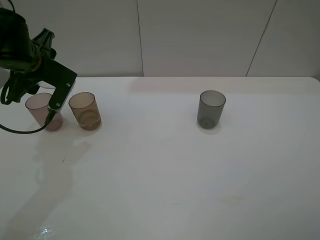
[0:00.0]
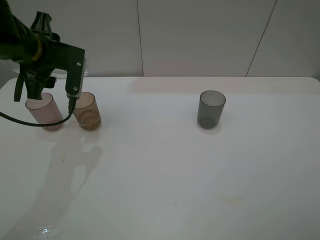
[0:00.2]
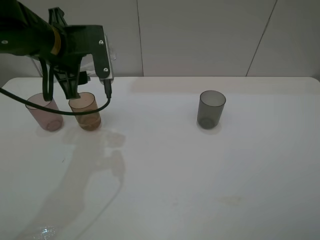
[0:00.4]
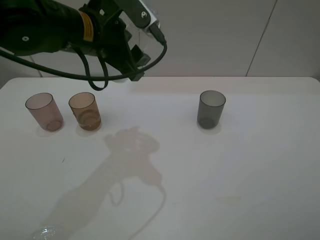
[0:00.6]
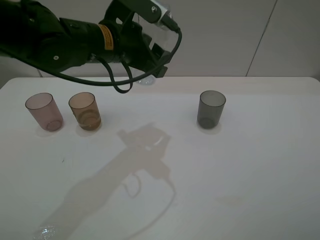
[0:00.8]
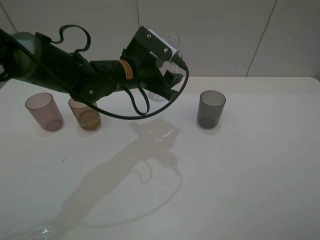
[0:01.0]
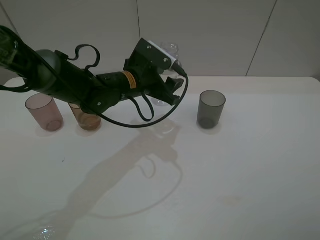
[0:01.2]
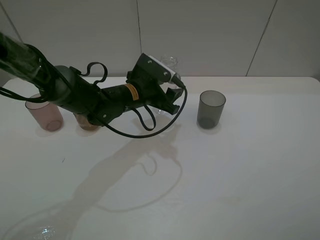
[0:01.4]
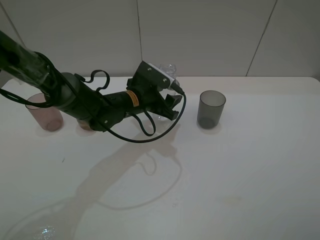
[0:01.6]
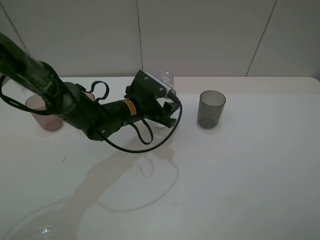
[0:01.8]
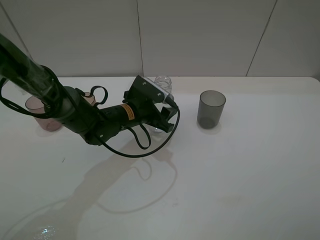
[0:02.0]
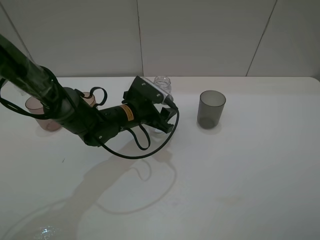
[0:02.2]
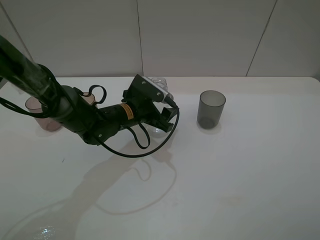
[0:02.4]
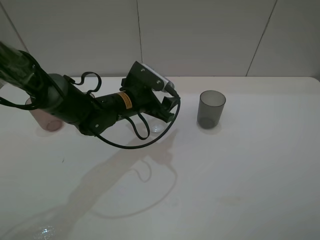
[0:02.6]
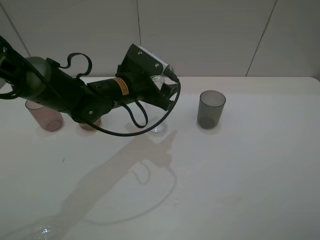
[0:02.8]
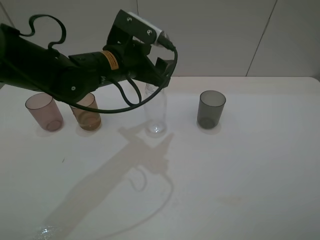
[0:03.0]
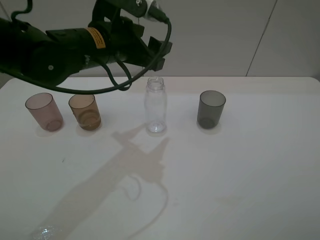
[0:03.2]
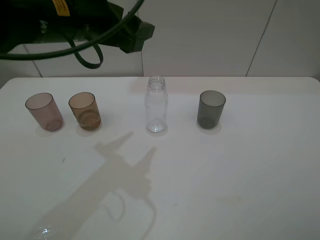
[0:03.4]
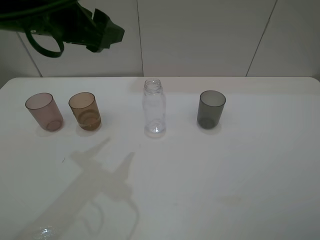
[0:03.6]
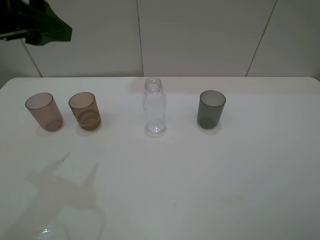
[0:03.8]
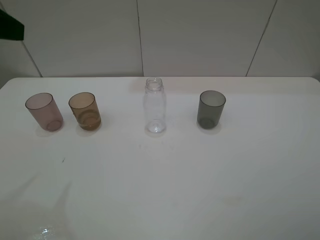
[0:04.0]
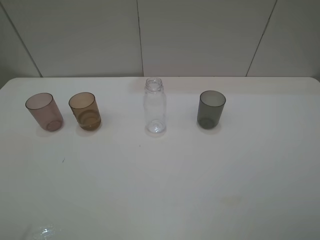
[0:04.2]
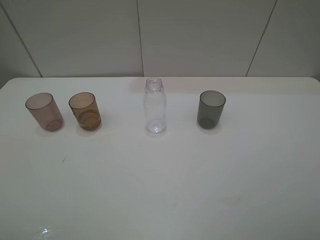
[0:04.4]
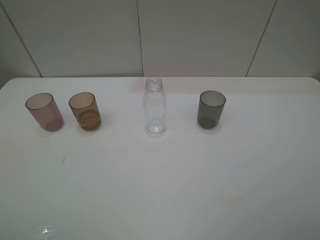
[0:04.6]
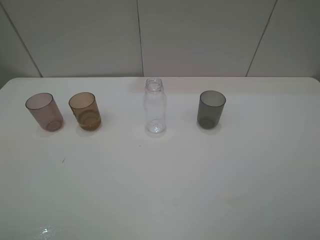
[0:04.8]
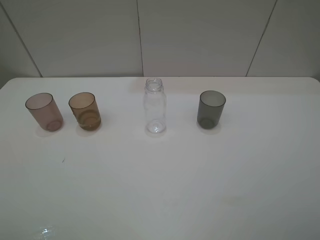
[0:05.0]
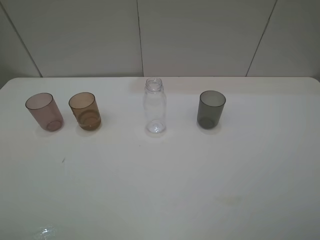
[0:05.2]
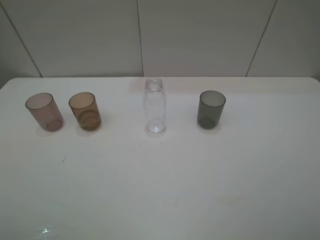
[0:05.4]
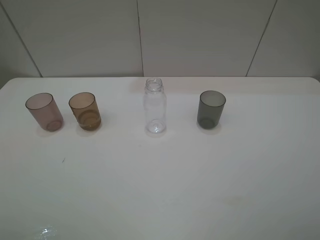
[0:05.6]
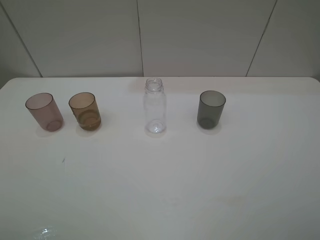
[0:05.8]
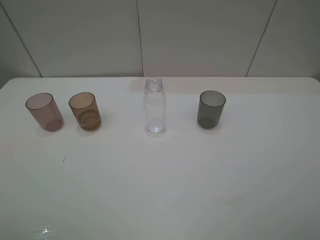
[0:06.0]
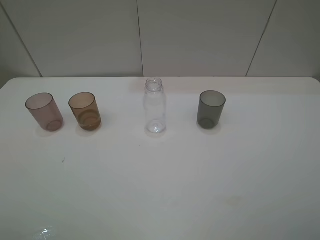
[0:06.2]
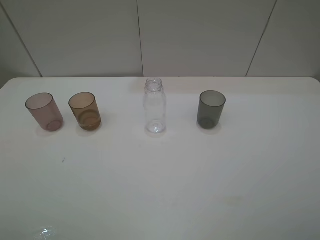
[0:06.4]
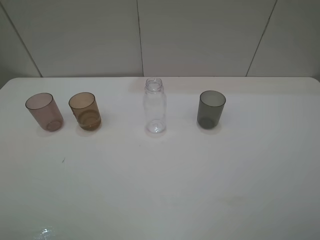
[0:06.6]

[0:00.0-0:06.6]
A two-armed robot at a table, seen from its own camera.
Task of the whole recording: pick up the bottle filled with water and pour water into the middle cup of the three cups.
Step, 0:00.2 to 0:03.0: Place the transparent bottle with the left gripper.
0:00.0 to 0:01.6: The left gripper moves to the right and downward, some 20 cm.
0:01.6 to 0:03.2: The left gripper shifts roughly 15 cm upward, and opens.
0:03.2 to 0:05.0: The left gripper moves backward and to the left, about 40 cm.

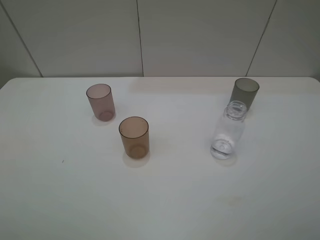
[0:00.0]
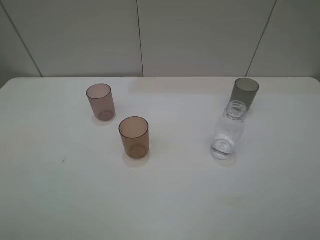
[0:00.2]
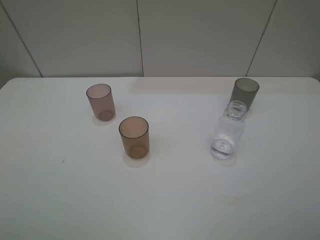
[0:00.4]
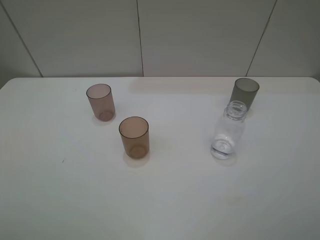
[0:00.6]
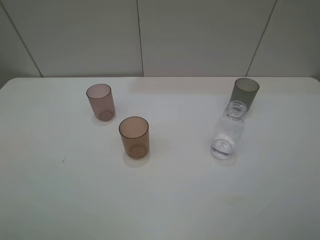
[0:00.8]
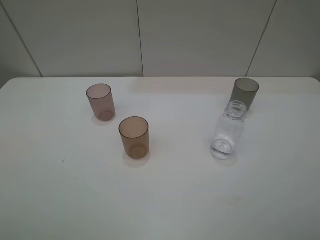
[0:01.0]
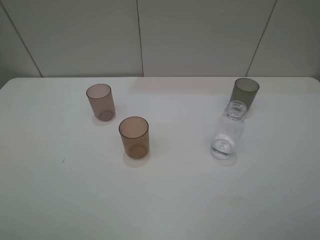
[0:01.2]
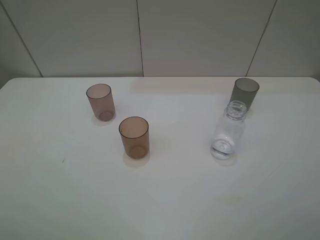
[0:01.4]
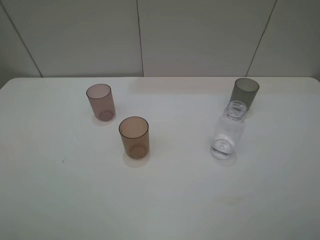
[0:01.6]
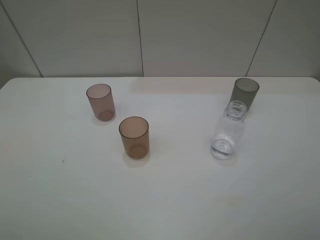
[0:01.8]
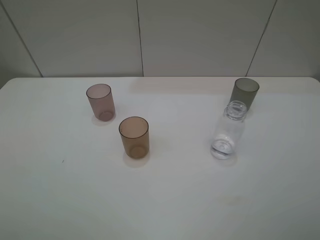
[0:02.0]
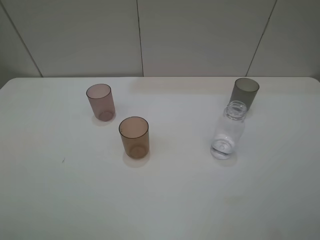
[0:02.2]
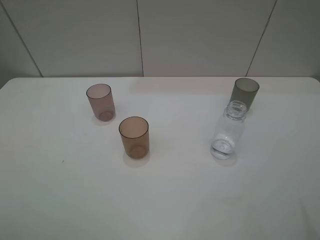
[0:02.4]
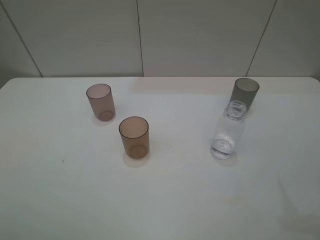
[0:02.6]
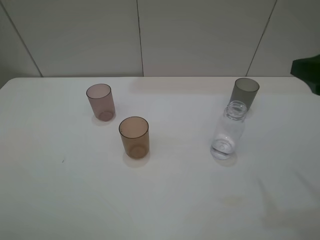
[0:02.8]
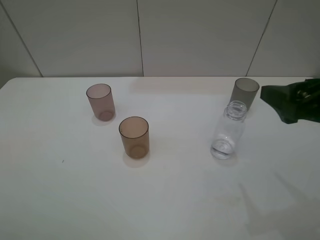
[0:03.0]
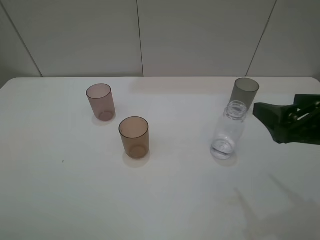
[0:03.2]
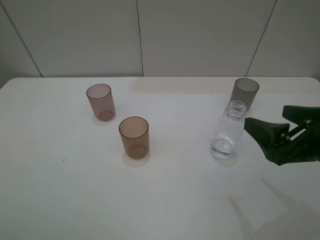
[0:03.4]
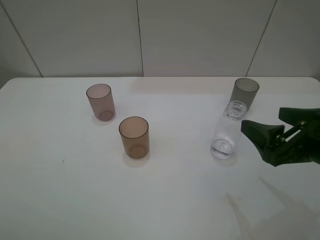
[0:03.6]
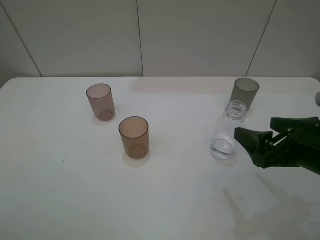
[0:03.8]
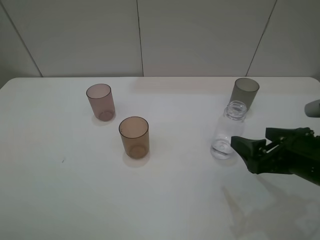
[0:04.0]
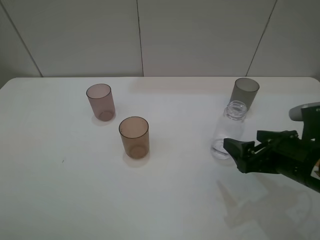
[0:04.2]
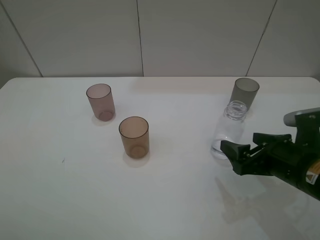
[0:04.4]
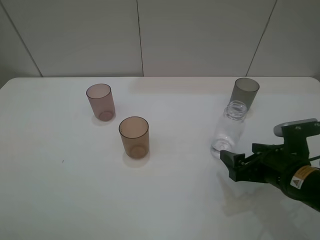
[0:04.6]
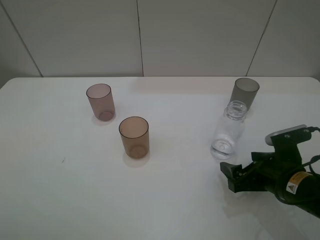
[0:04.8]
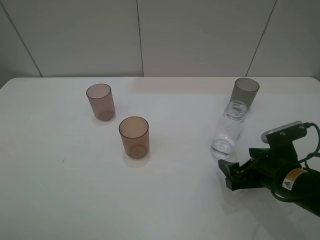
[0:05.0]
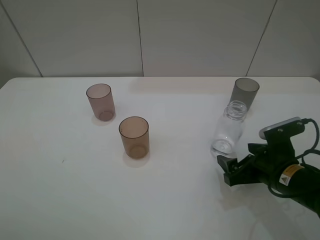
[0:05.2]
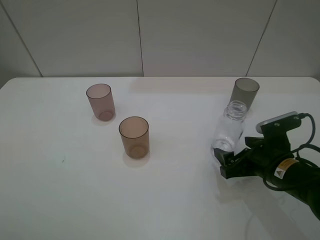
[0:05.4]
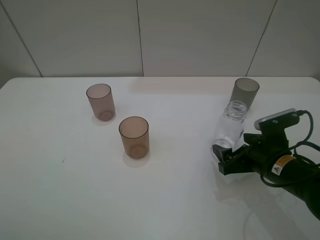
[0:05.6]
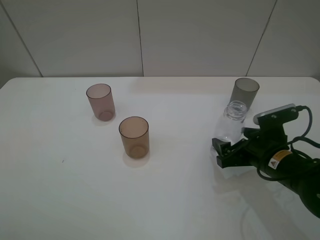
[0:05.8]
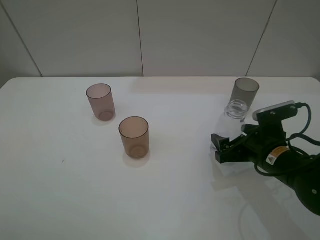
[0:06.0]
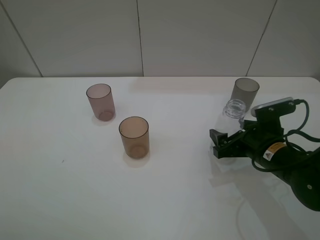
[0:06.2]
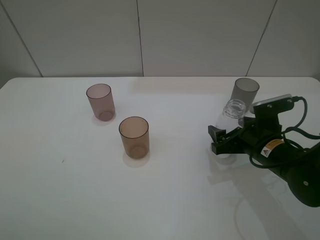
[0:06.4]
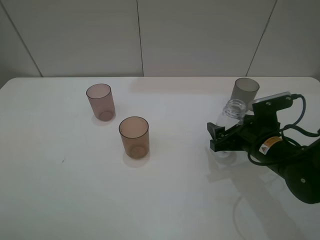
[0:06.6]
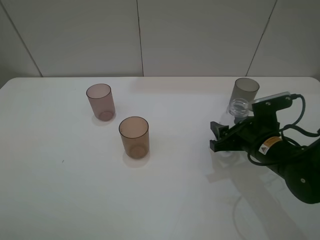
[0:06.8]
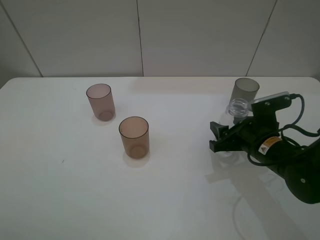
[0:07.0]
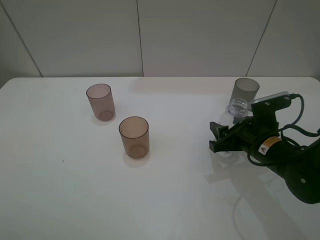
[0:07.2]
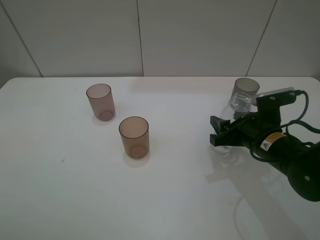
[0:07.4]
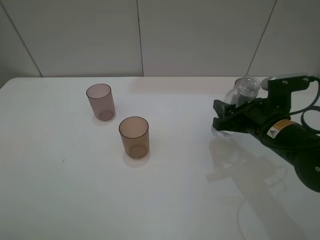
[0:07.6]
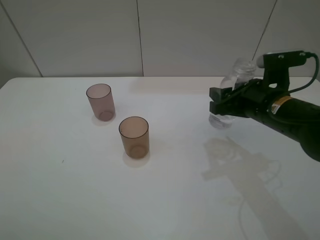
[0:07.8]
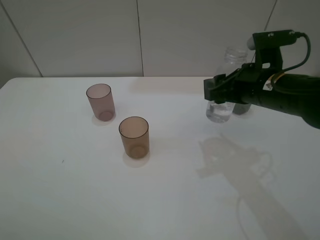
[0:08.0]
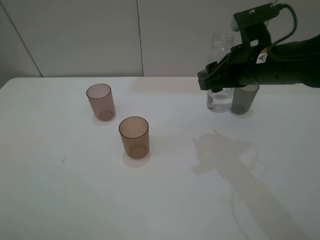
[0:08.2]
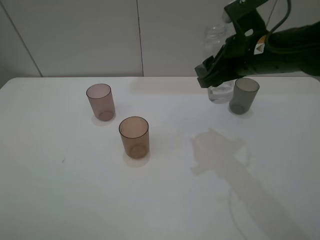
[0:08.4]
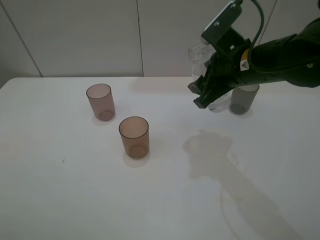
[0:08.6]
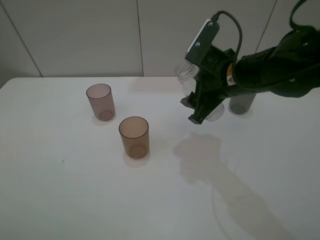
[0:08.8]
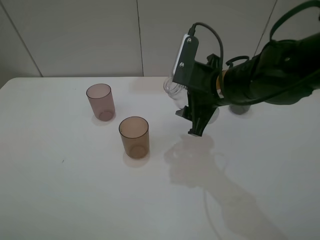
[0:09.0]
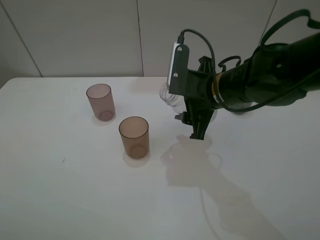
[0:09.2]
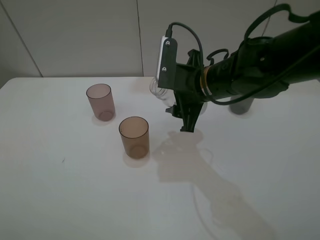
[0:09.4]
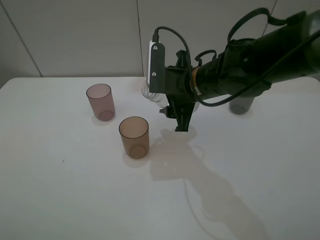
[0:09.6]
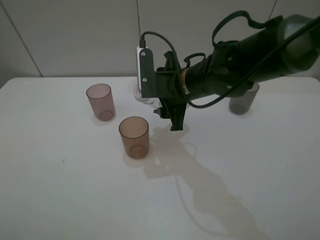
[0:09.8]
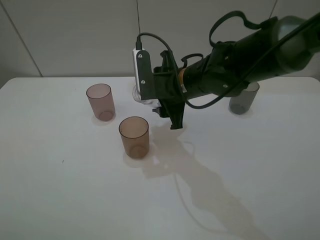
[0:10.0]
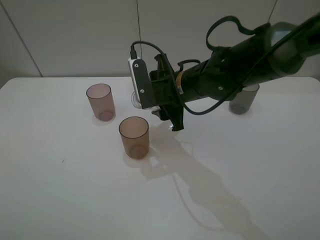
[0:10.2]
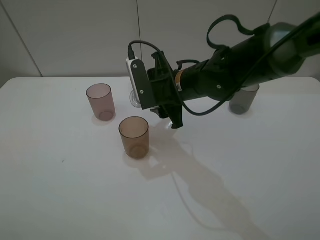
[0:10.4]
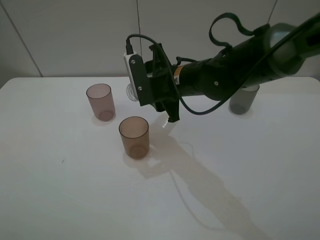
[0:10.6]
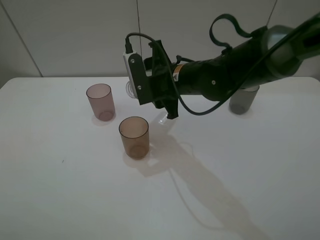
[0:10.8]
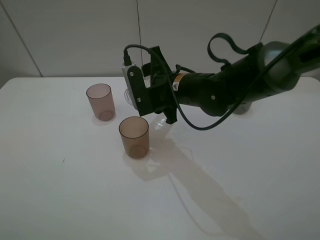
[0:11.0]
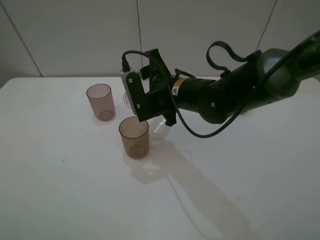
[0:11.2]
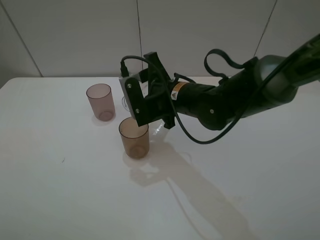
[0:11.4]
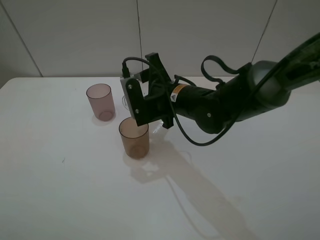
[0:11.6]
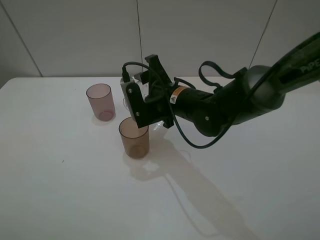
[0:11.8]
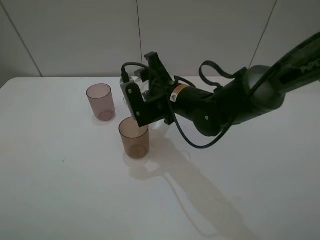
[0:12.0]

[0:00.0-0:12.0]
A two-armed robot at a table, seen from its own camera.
Task of the whole recording: pick up the bottle filled with water and pour water into the middle cup of the three cups.
Step, 0:00.0 to 0:07.0: Grasp the transparent bottle with the right gripper.
Step, 0:07.2 to 0:12.0: Pour water from transparent bottle to red cup with the right gripper.
0:00.0 to 0:01.6: Neither gripper changes place.
0:01.6 to 0:03.0: The right gripper heads forward, covering some 15 cm.
0:03.0 to 0:04.4: The right gripper travels downward by roughly 15 cm.
0:04.4 to 0:06.0: The right gripper goes approximately 5 cm forward.
0:06.0 to 0:07.6: The right gripper shifts some 5 cm upward, and closes up.
0:07.6 to 0:09.0: The right gripper goes approximately 10 cm to the left and upward.
0:09.0 to 0:10.4: The right gripper shifts some 5 cm to the left.

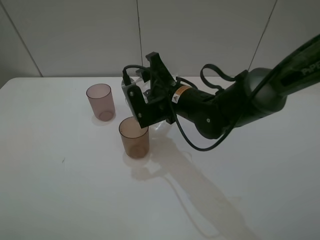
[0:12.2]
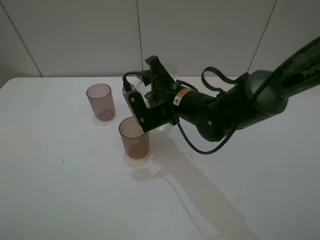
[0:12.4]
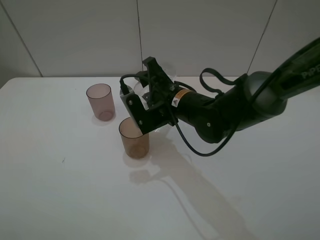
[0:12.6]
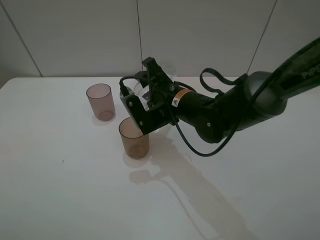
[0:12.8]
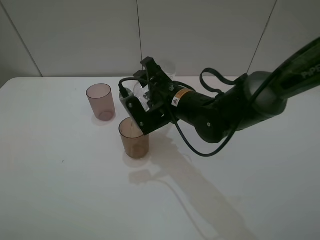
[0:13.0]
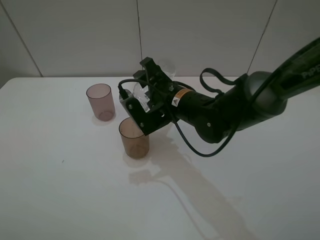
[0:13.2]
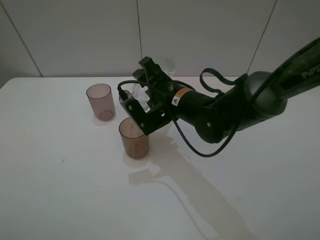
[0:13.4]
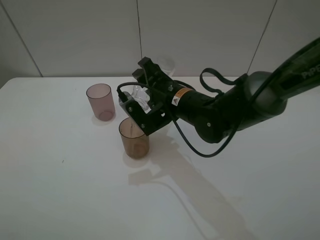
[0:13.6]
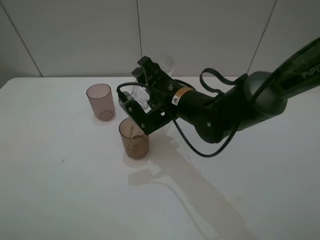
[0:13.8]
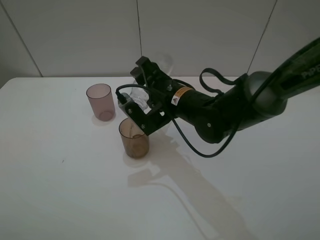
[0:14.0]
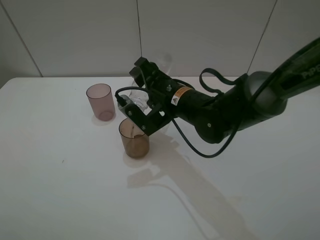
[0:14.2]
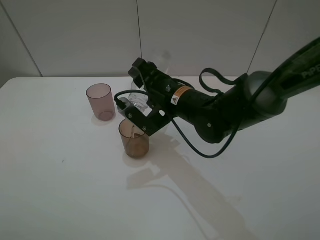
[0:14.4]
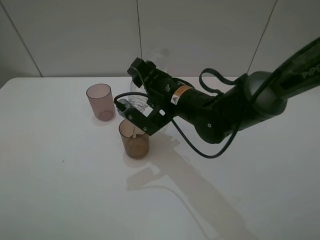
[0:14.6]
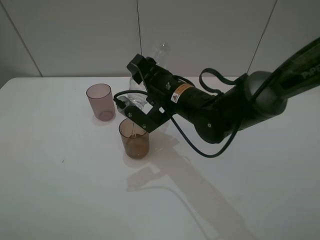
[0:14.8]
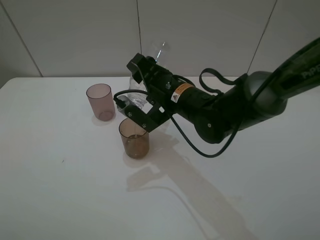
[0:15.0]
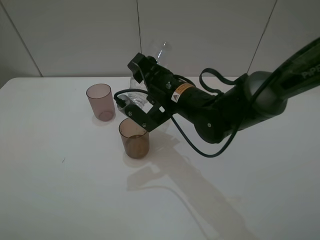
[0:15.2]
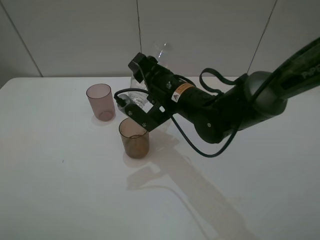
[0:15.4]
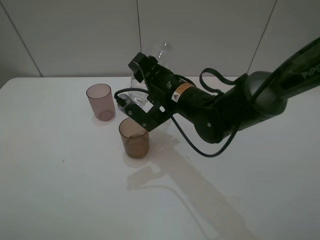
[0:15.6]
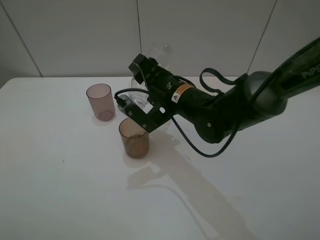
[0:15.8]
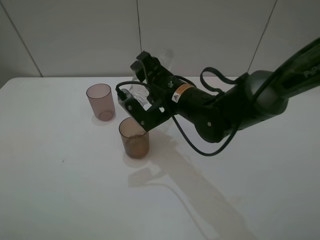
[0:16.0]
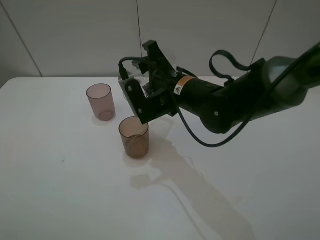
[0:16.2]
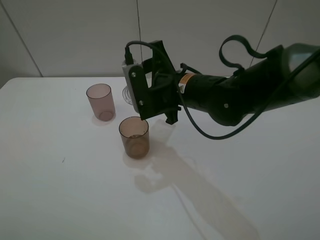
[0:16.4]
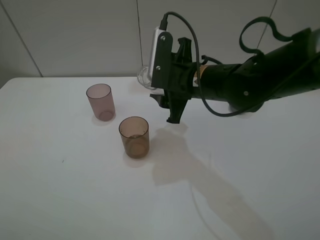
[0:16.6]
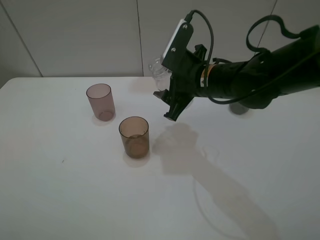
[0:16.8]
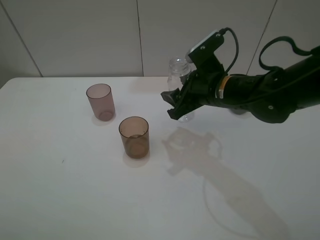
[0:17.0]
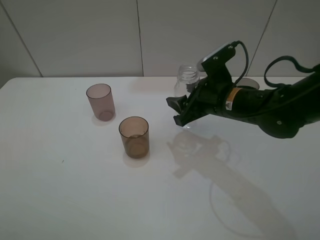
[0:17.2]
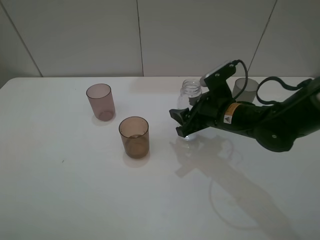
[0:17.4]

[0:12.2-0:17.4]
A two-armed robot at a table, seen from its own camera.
Task of the whole recording: pick up the bottle filled with water and pour water into the middle cup of the three cups.
0:12.2 to 0:14.0: The grippers stay close to where they were, moving slightly.
0:14.0 to 0:15.6: There are only small adjustments of the grippers.
0:15.6 to 0:17.4: The right gripper is displaced to the right by about 10 cm.
